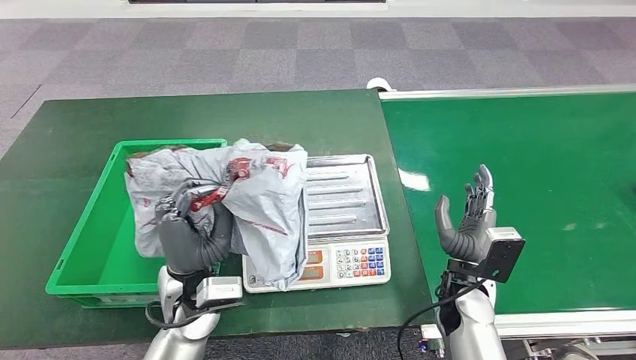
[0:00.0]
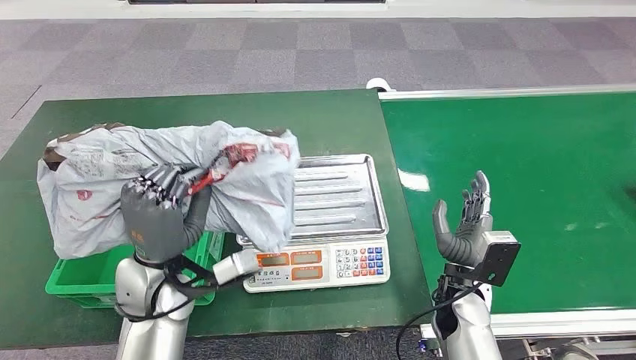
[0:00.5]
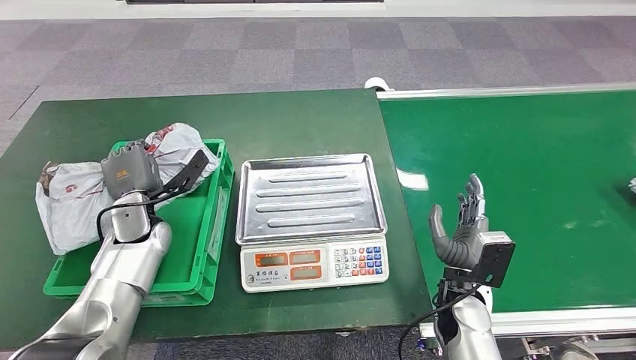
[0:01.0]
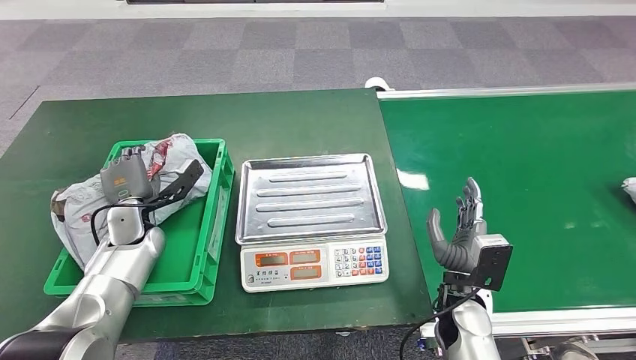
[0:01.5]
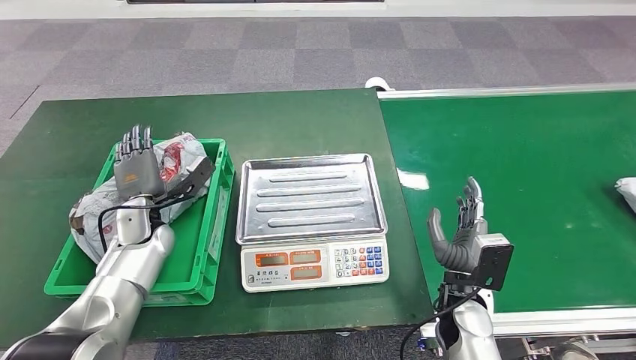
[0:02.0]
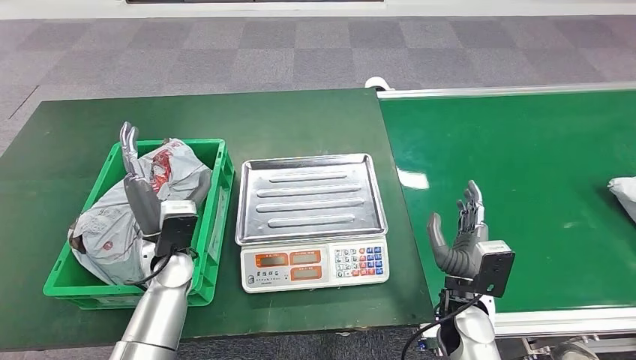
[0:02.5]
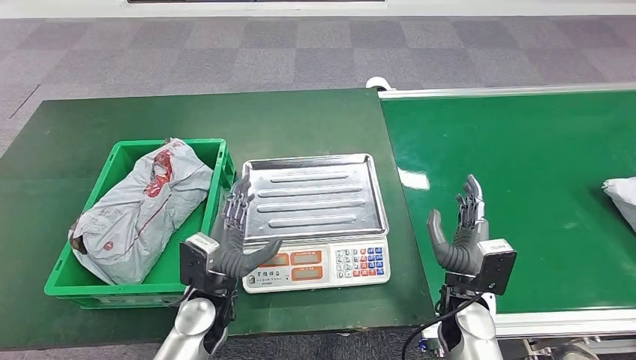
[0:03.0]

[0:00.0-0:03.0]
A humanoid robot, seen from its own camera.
Step, 0:01.0 to 0:03.0: Place the package into the parcel locker.
0:01.5 to 0:03.0: The left hand moves to the right and backward, roughly 20 cm.
